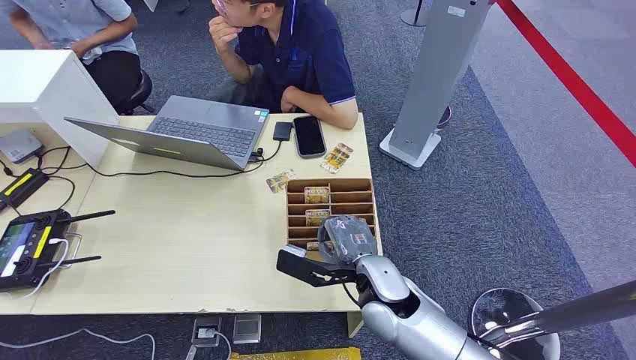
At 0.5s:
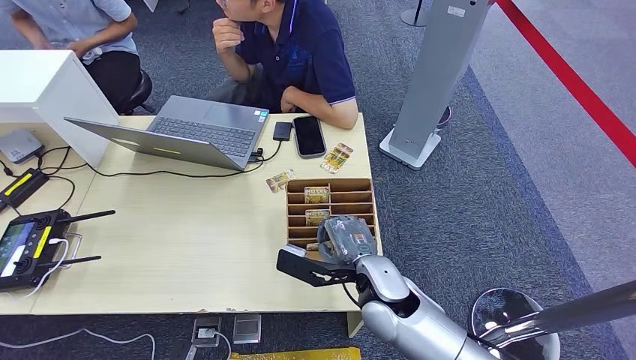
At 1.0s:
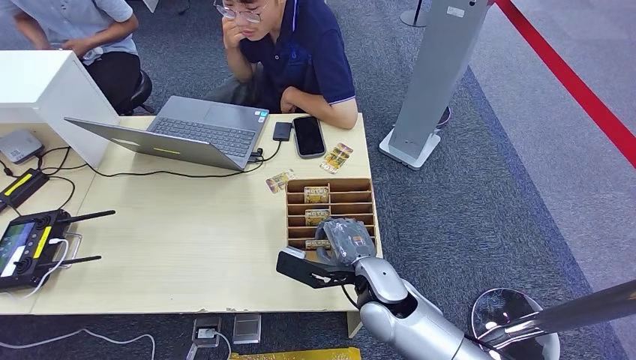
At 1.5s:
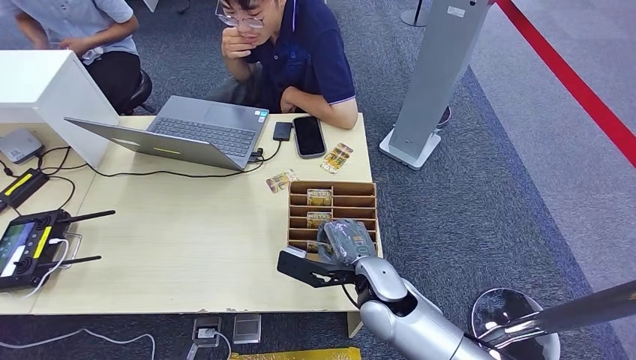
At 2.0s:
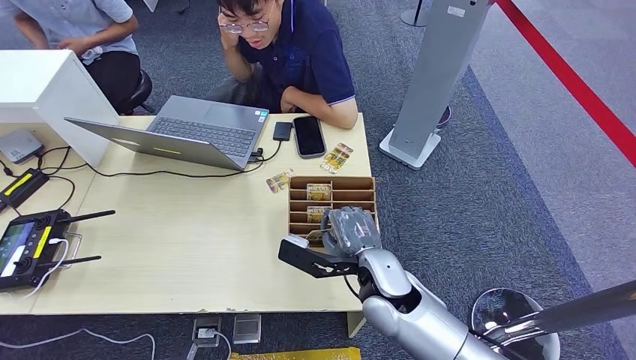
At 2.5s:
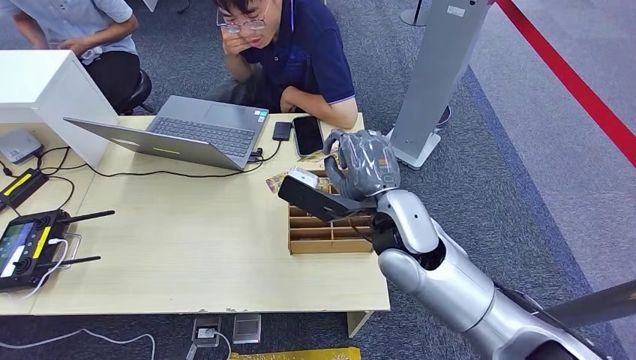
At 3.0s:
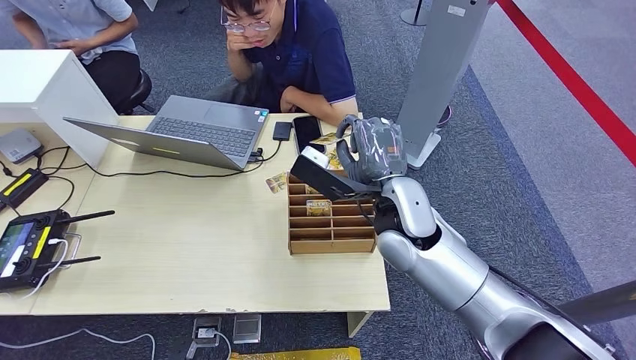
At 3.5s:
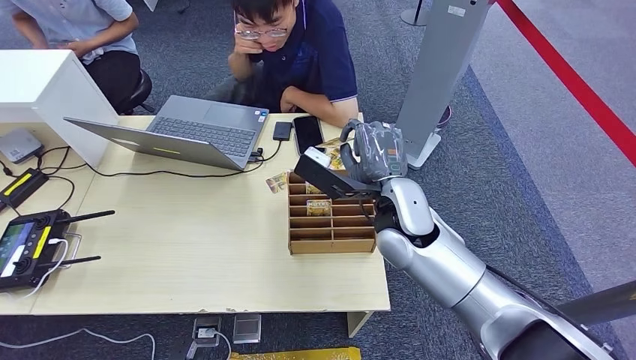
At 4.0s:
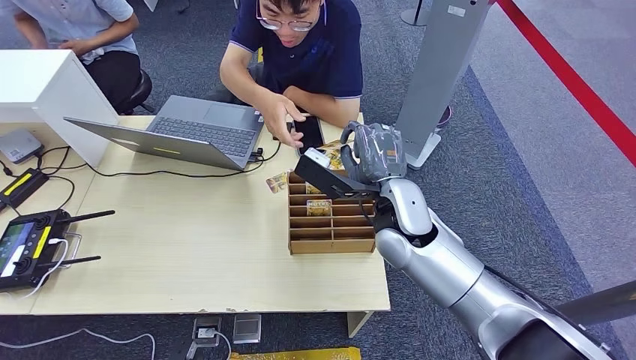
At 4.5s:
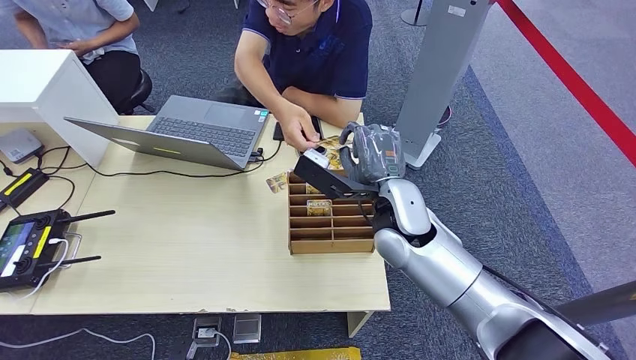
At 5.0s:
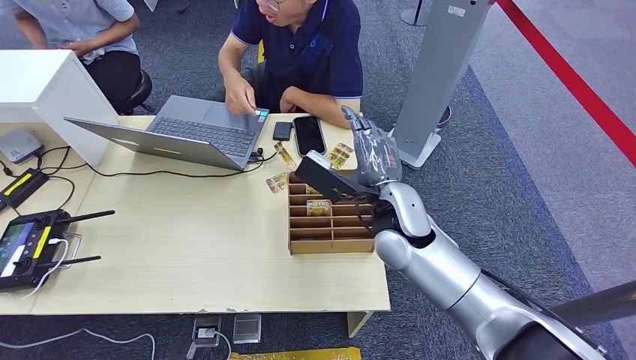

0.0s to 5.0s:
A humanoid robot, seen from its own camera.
Task of the whole recording: Pick up the card and hand it over to the target person.
Step, 0.0s to 2.5s: Pick up the key card from the card box.
Step, 3.0s to 5.0s: Hand the key card to the target.
2.5s to 5.0s: The right hand goes about 5 cm downward.
